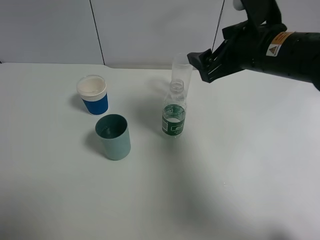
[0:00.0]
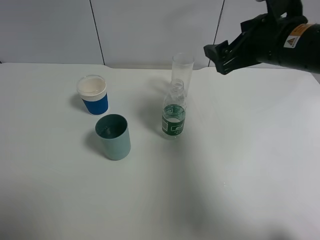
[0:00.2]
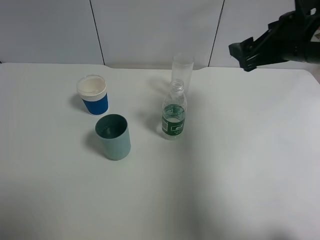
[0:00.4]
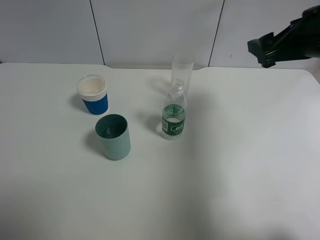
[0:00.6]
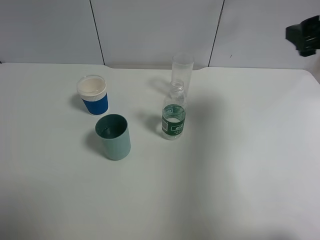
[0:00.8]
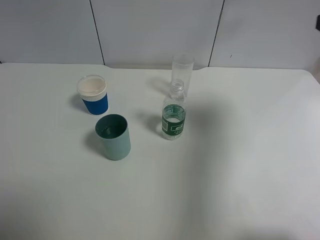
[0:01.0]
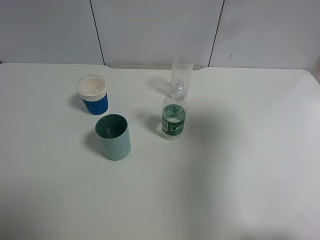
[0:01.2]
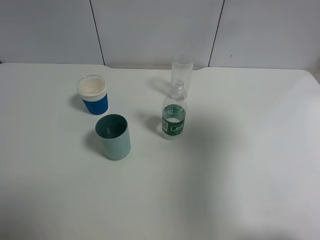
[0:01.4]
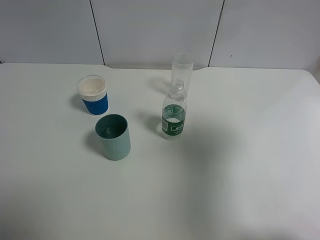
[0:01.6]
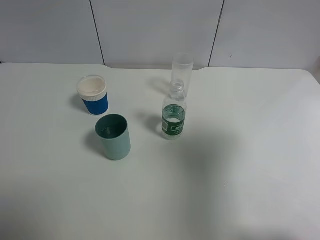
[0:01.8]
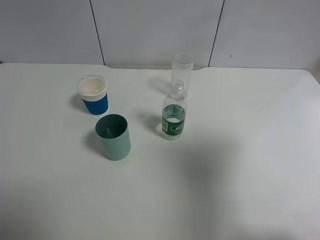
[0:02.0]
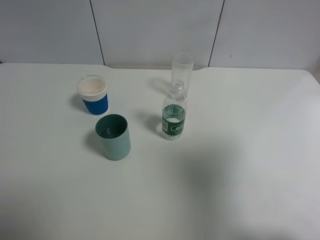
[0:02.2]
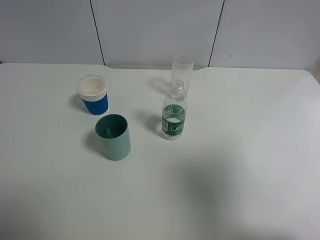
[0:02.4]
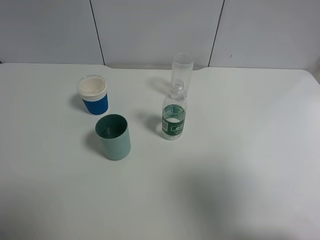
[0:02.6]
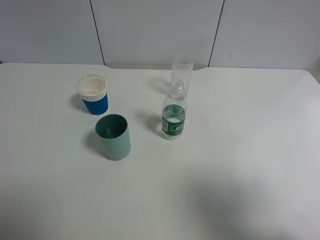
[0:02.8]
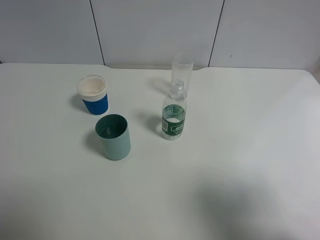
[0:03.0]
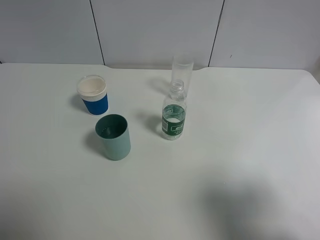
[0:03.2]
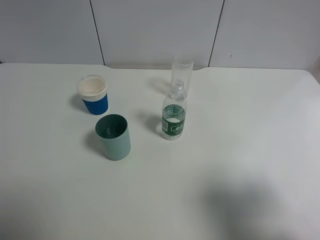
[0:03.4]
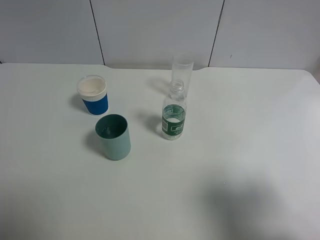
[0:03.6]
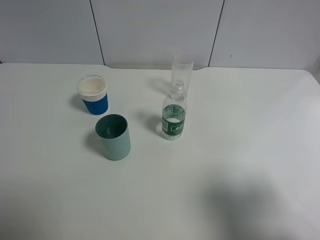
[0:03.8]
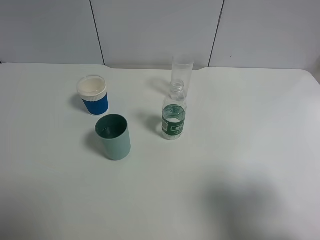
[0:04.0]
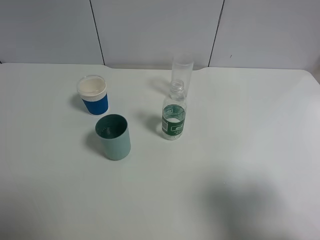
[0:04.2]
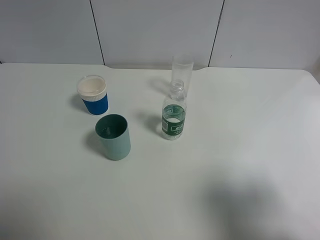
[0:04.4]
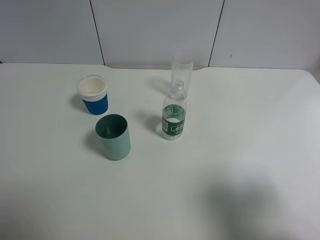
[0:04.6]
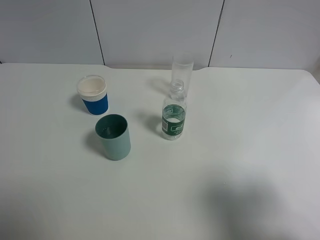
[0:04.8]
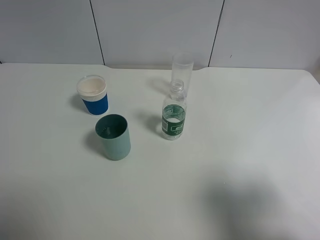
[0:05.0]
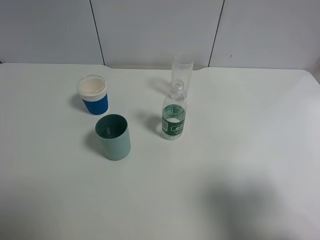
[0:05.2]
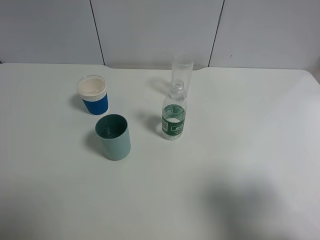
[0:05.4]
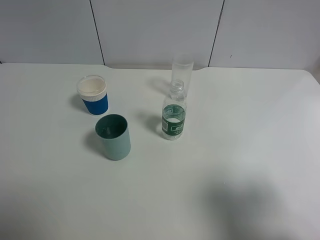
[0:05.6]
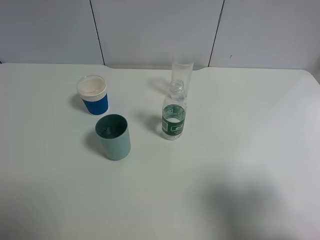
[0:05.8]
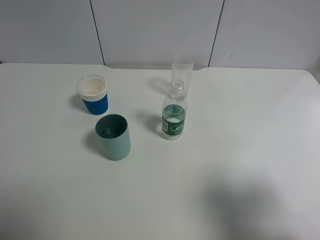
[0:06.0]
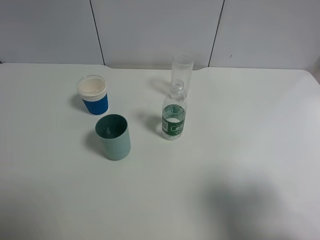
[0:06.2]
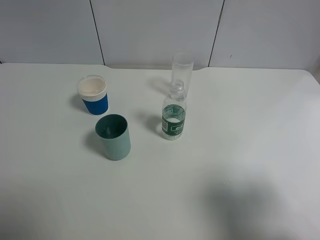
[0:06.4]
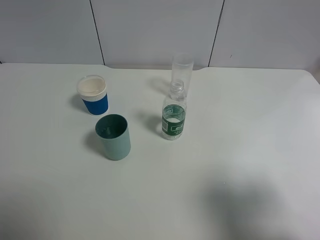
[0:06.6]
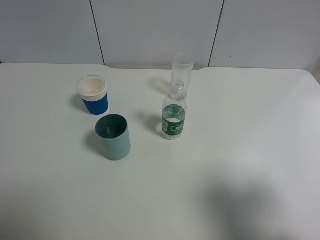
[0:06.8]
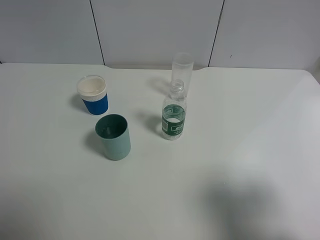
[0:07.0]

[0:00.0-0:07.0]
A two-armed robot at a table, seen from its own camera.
Task of the whole recording: use a gripper to hold the bottle of the drink and pour it into a random cup.
0:00.0 to 0:01.4: The right gripper goes approximately 20 cm backward, to the right and upward.
0:01.4 to 0:02.8: The right gripper shifts some 15 cm backward.
0:02.8 to 0:04.2: The right gripper shifts some 5 cm downward.
0:04.2 to 0:07.0: The two grippers keep their place.
